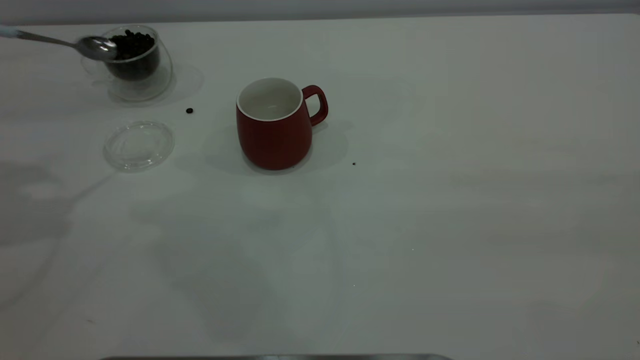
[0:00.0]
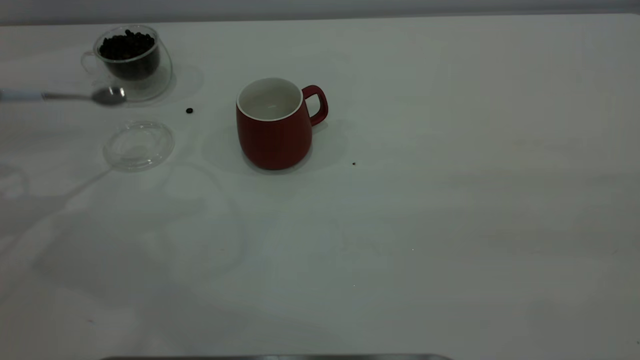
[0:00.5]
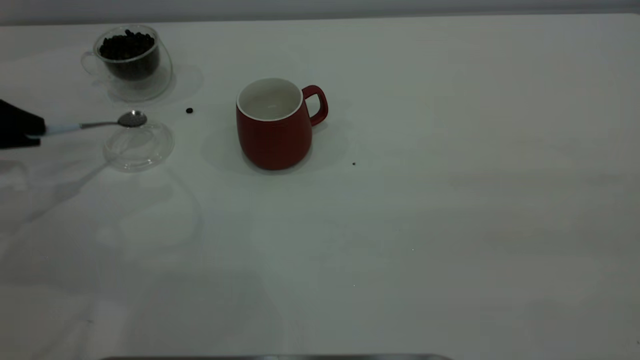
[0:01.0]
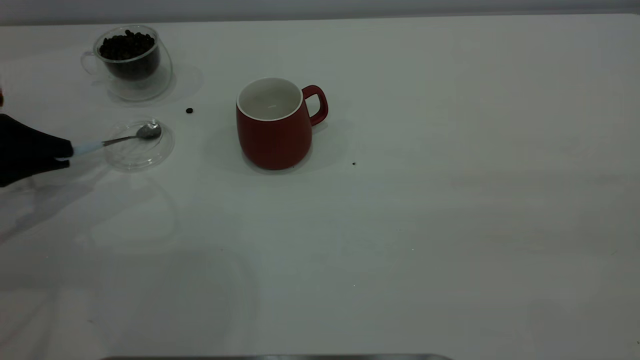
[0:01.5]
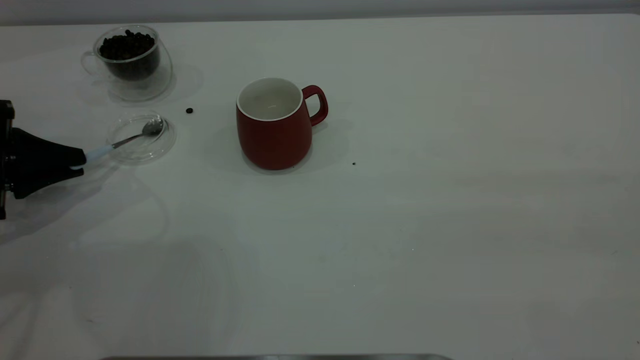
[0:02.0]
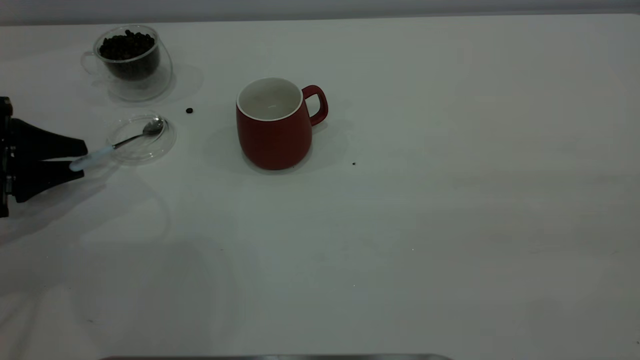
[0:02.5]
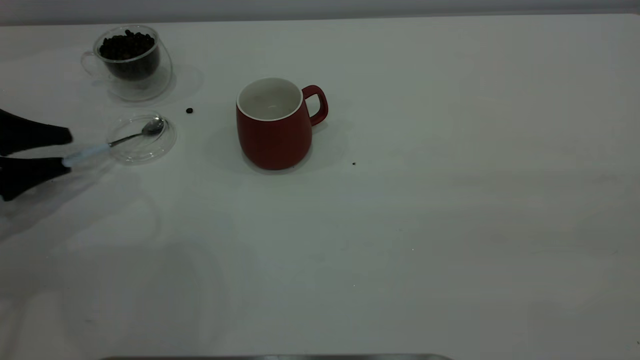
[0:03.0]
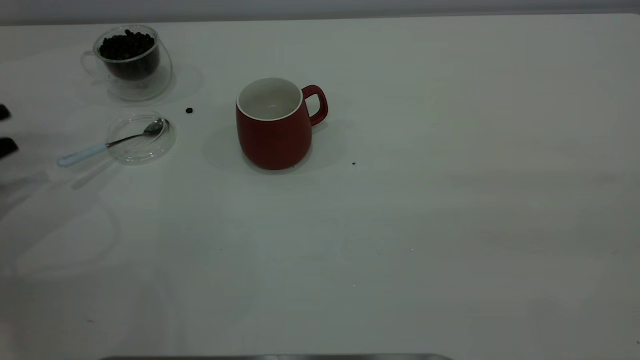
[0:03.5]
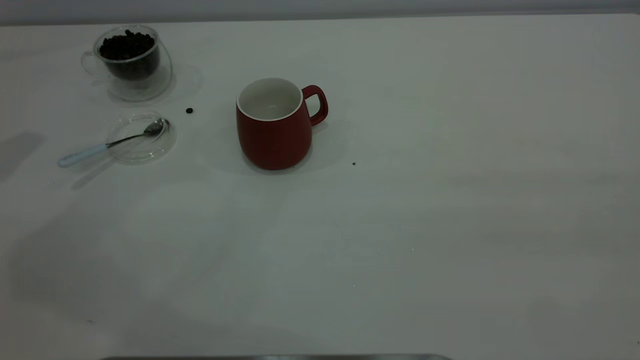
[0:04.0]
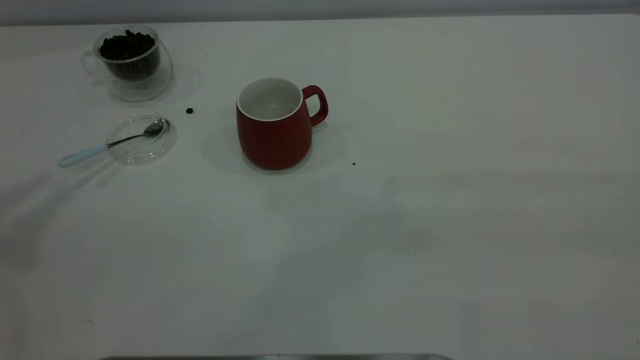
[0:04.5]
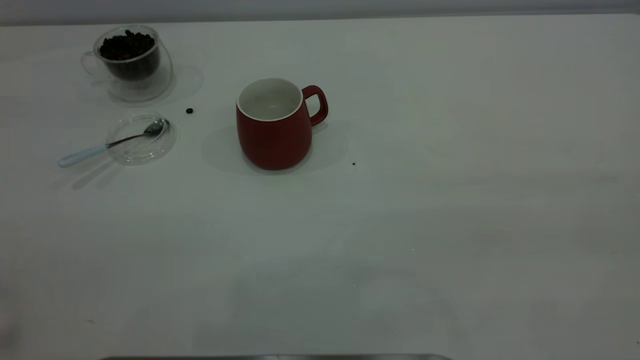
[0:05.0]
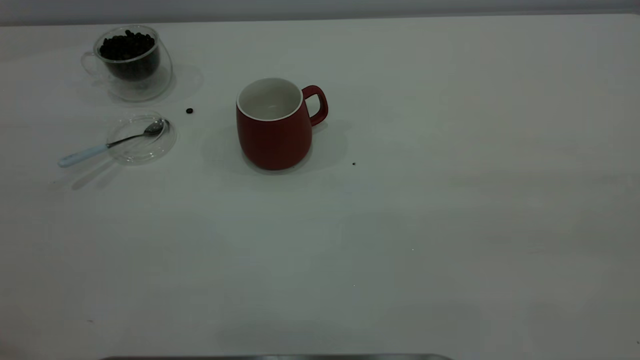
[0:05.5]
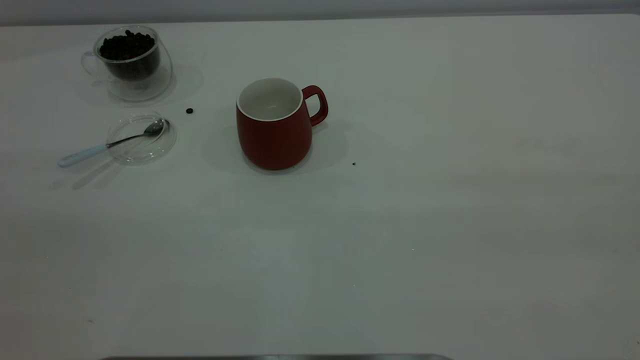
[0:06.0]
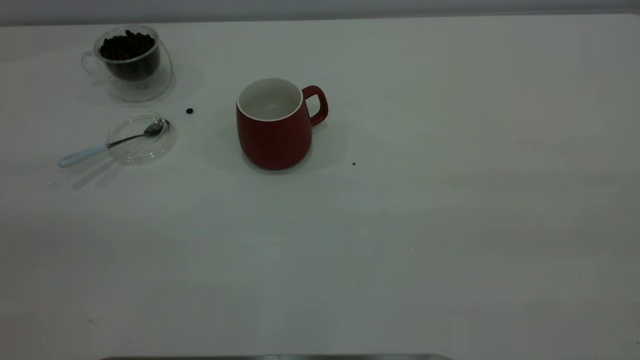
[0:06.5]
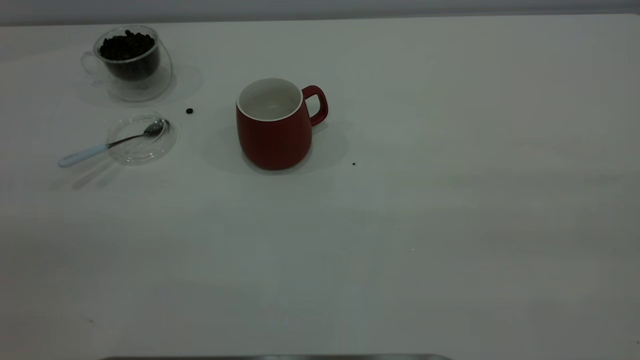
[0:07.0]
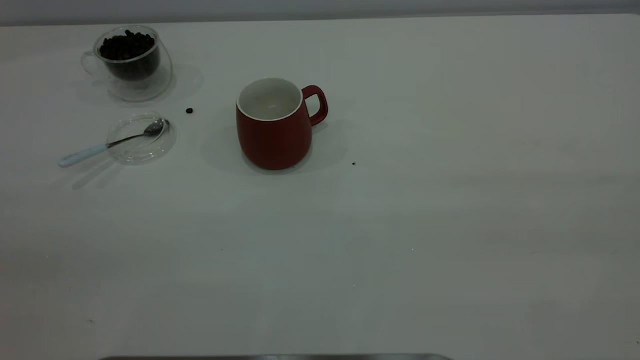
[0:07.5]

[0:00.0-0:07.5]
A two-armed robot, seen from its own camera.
Task of the whole recording: the right gripper place the red cup in the center of the table, the left gripper take the blue spoon from the cup lid and scoop out the coffee beans from the coffee cup and put them into the red cup, the left gripper put the spoon back into the cup lid.
Step, 0:00.0 to 0:03.5: Place the spoon back in its original place.
0:00.0 to 0:02.0: The left gripper travels downward by approximately 25 cm.
0:02.0 to 0:04.0: The left gripper moves upward, about 20 cm, and opens its fingers.
